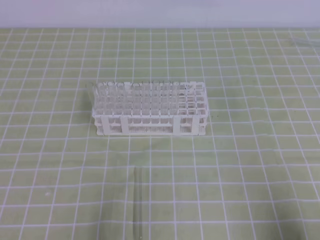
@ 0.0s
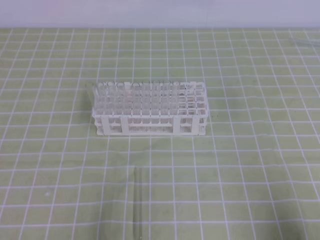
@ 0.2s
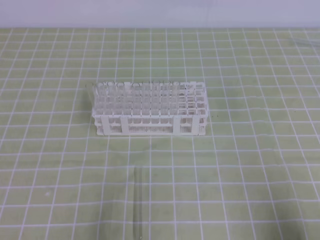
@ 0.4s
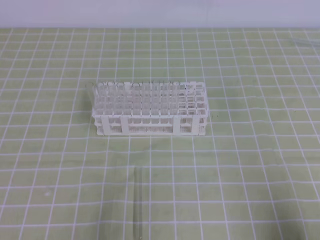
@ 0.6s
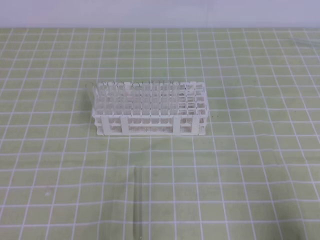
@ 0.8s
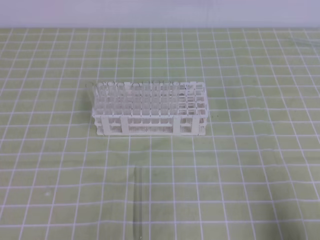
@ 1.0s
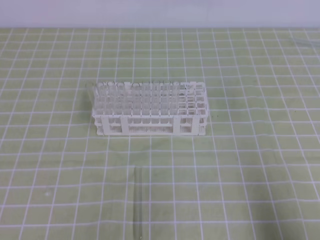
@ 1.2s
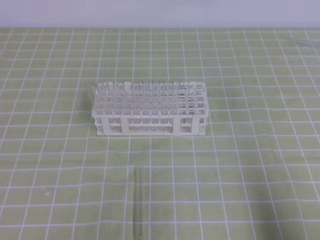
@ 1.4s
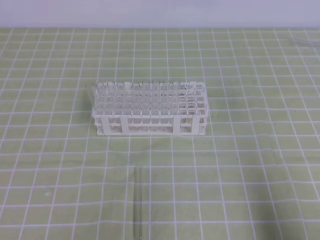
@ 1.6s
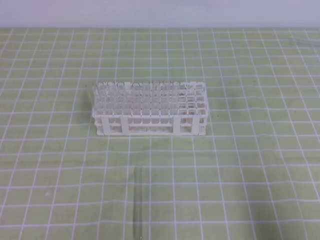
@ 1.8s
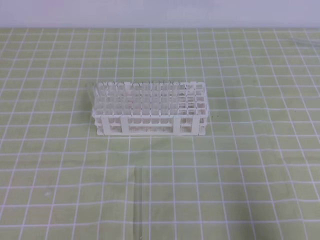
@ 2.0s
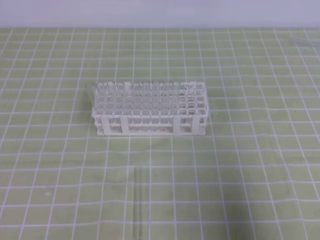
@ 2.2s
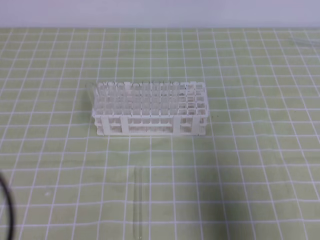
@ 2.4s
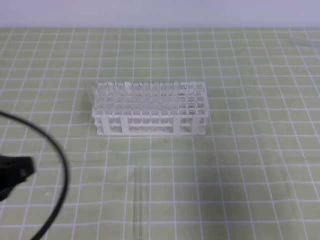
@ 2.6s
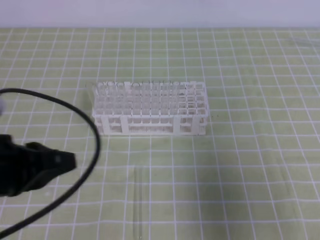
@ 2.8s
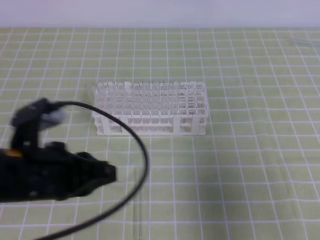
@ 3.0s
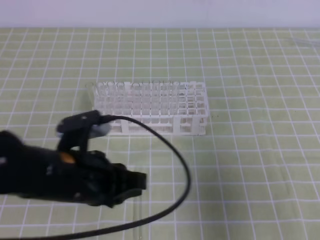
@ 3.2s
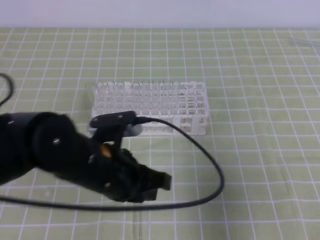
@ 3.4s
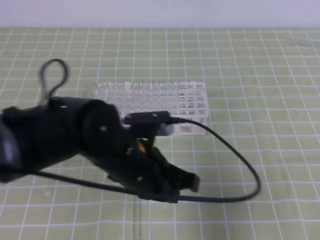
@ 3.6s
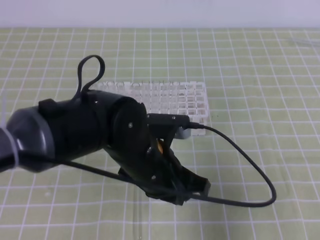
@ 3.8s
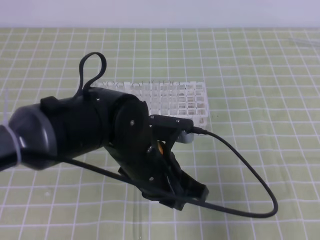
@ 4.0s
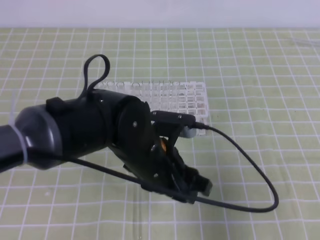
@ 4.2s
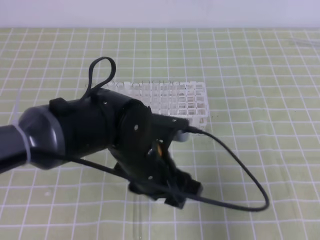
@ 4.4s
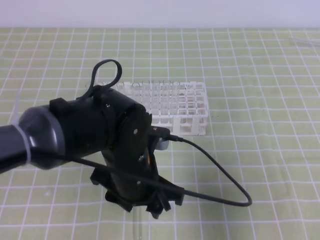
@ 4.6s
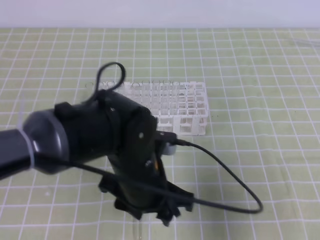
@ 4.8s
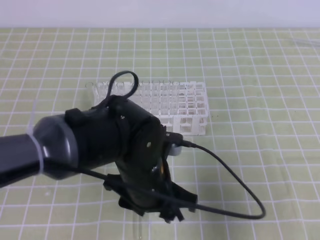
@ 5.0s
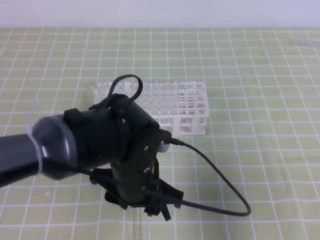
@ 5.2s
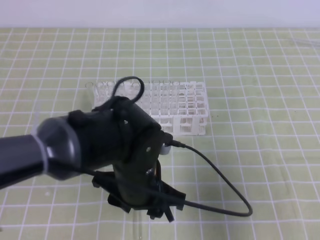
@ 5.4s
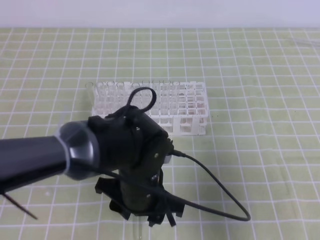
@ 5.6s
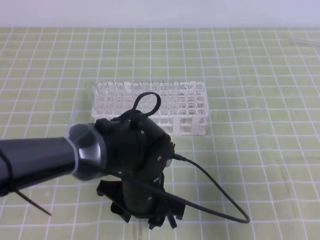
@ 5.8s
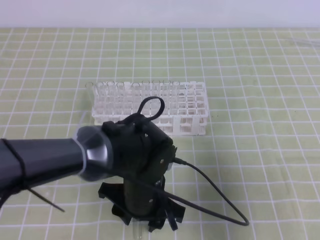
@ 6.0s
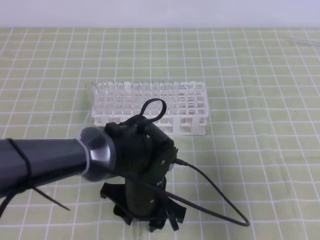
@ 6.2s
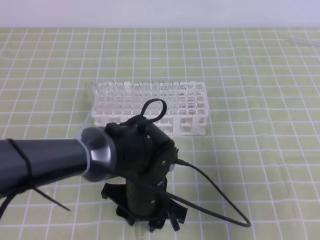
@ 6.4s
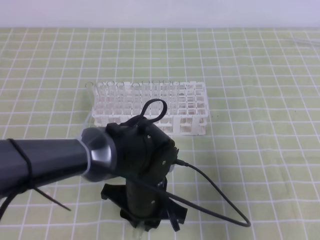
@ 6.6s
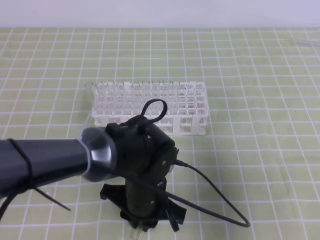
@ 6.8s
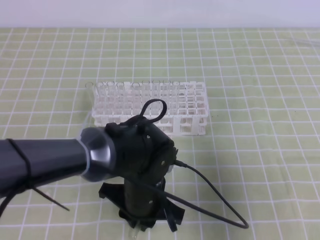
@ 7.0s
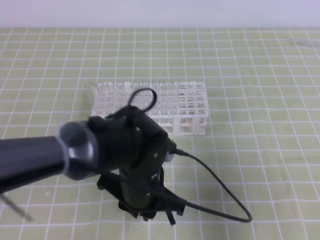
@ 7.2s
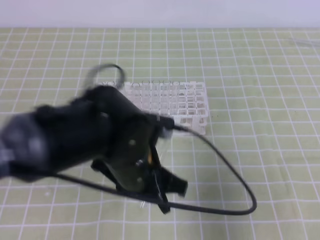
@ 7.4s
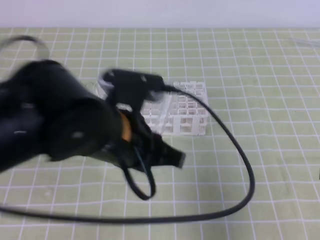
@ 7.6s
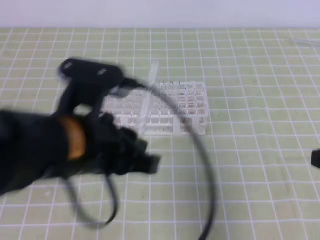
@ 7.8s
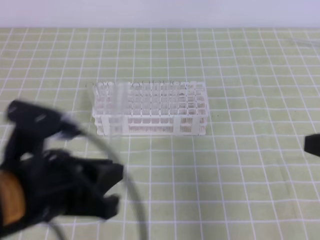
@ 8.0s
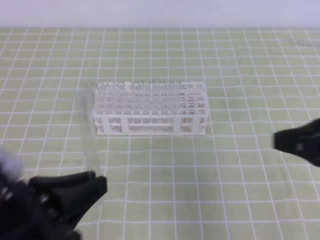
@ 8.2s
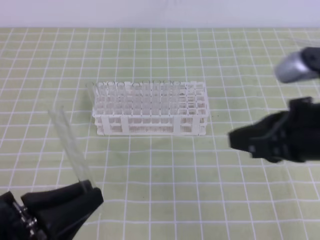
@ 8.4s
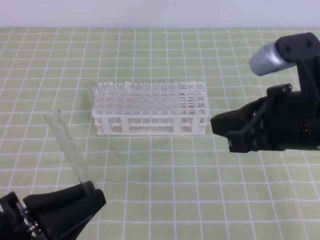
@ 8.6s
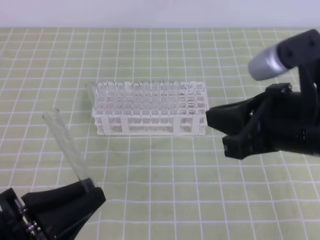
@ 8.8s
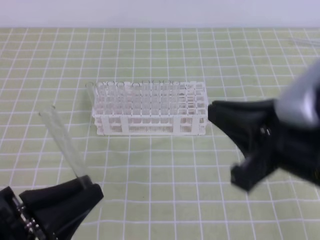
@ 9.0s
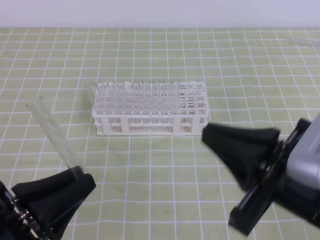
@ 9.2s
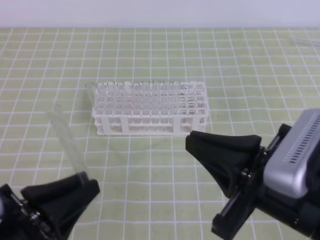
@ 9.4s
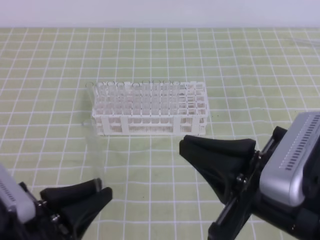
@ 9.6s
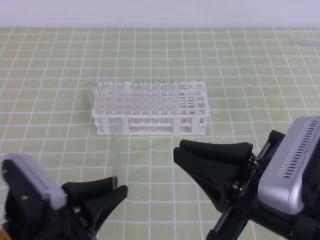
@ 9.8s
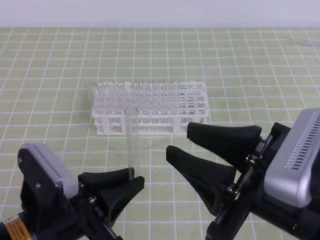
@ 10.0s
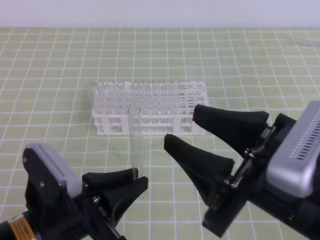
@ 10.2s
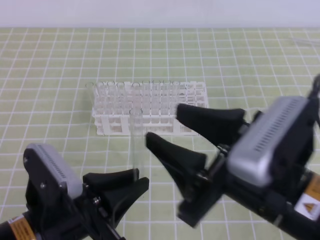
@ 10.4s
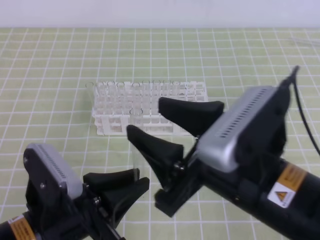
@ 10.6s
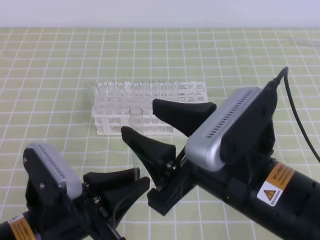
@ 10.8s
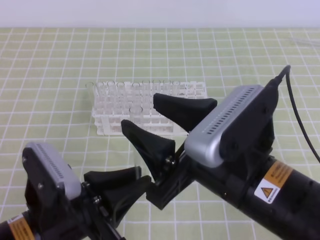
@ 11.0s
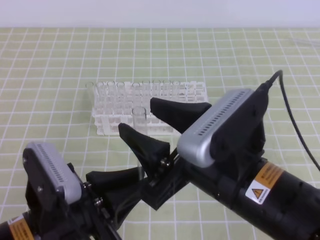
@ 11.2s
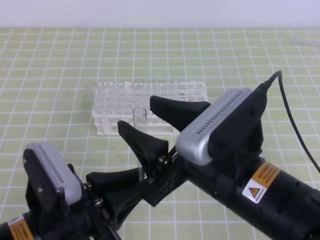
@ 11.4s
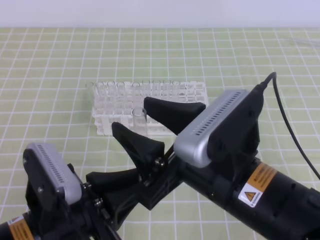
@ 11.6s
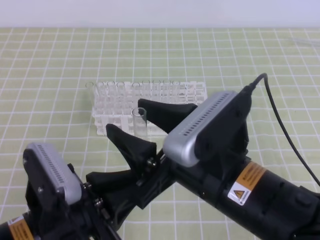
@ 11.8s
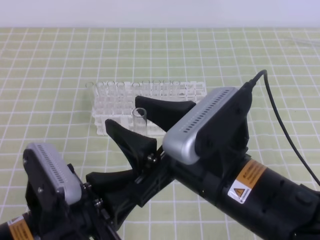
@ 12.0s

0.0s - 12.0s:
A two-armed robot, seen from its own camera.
1.6s - 3.0s: The right gripper moves forward and upward, roughly 10 cm, while the left gripper travels forward, to the right and upward by some 15 cm.
3.0s - 4.4s: The left gripper travels to the right by approximately 15 cm, and opens.
4.4s - 6.0s: The left gripper goes about 5 cm downward.
6.0s - 7.6s: The left gripper is displaced upward by about 10 cm, and closes up.
7.6s - 9.0s: The right gripper travels to the left and upward by about 15 cm, while the left gripper heads to the left and backward, covering approximately 15 cm.
9.0s - 10.4s: The left gripper moves to the right, about 5 cm. Meanwhile the right gripper shifts by approximately 5 cm, and opens up.
10.4s - 12.0s: The right gripper changes place by some 5 cm.

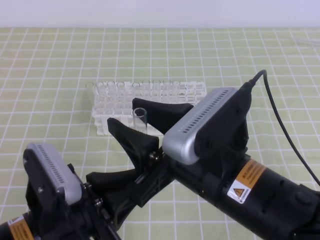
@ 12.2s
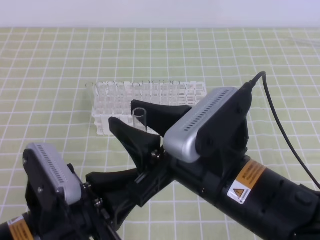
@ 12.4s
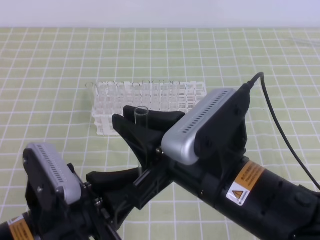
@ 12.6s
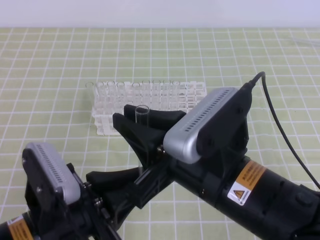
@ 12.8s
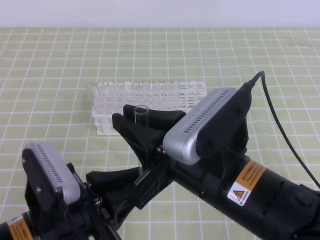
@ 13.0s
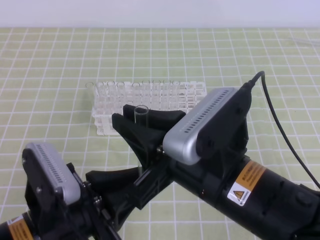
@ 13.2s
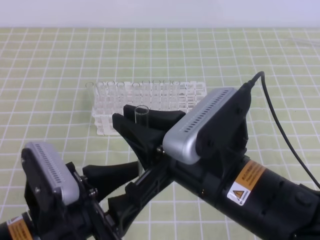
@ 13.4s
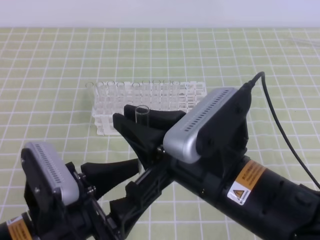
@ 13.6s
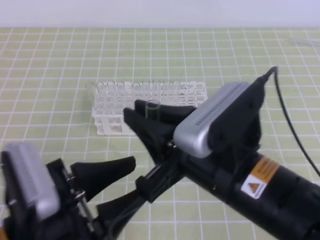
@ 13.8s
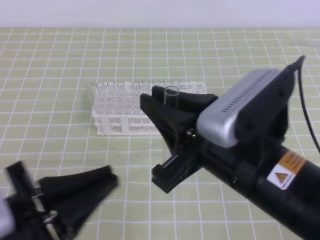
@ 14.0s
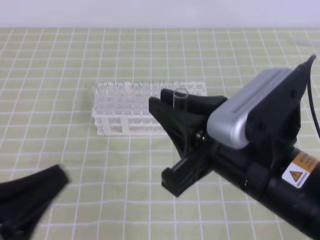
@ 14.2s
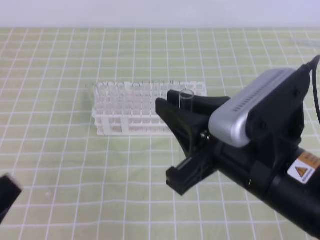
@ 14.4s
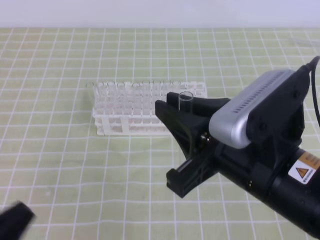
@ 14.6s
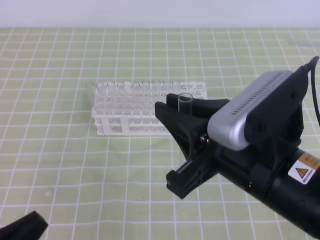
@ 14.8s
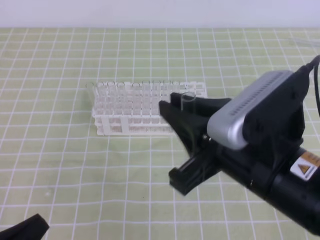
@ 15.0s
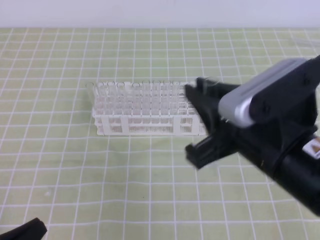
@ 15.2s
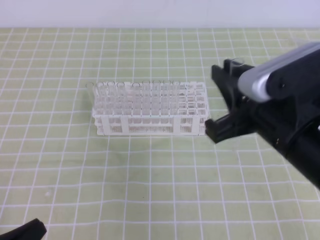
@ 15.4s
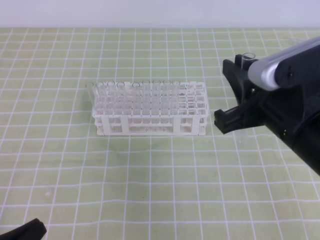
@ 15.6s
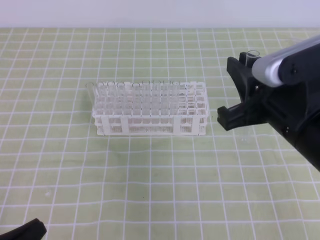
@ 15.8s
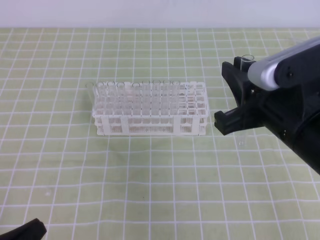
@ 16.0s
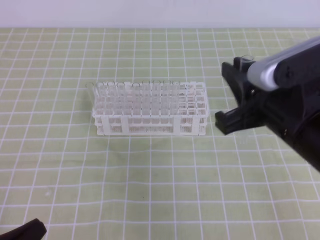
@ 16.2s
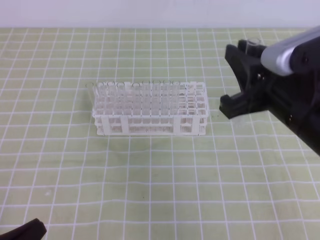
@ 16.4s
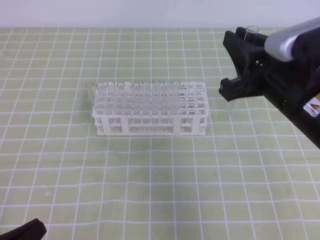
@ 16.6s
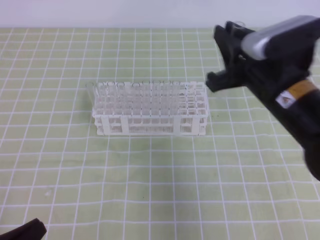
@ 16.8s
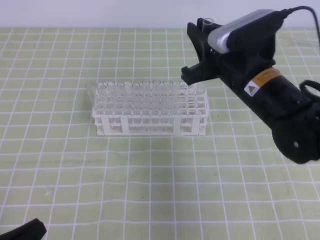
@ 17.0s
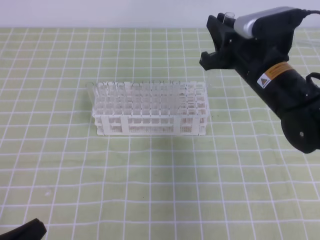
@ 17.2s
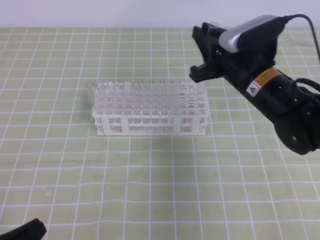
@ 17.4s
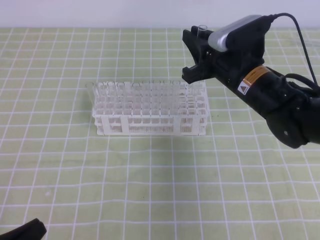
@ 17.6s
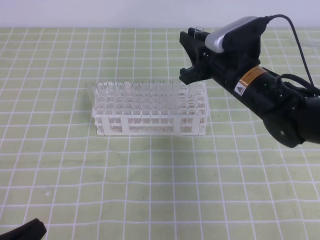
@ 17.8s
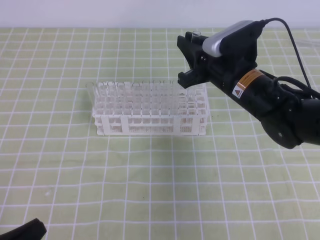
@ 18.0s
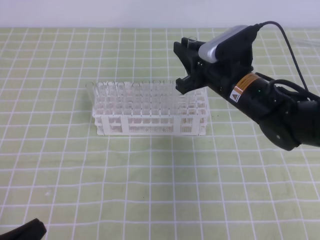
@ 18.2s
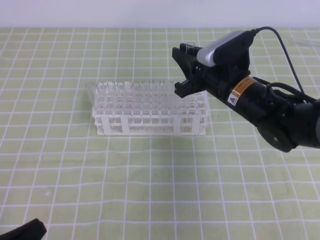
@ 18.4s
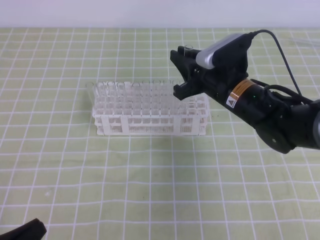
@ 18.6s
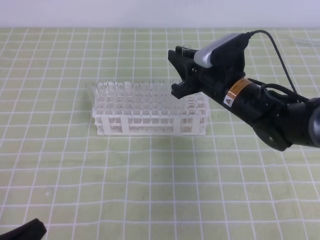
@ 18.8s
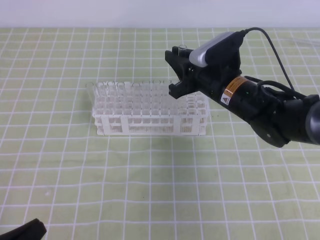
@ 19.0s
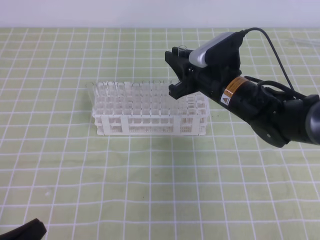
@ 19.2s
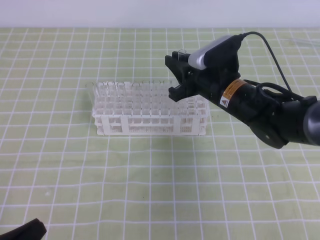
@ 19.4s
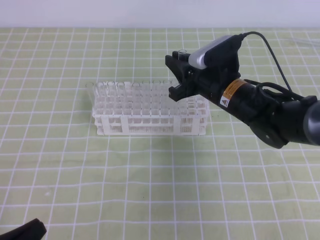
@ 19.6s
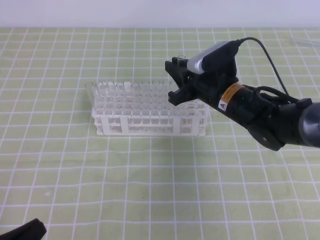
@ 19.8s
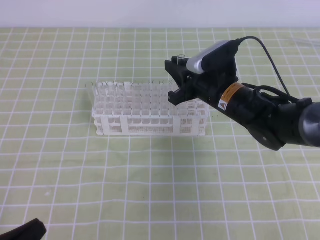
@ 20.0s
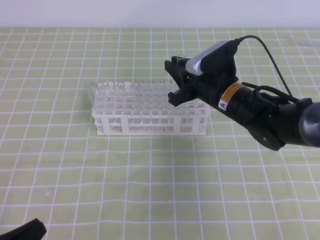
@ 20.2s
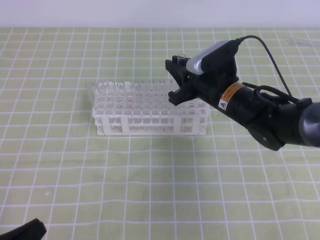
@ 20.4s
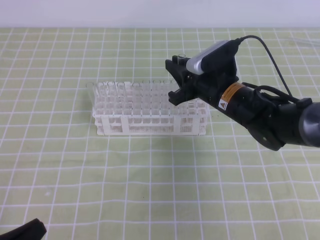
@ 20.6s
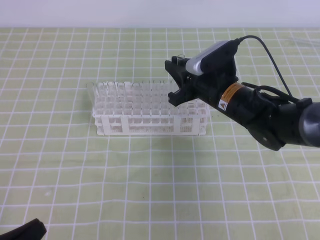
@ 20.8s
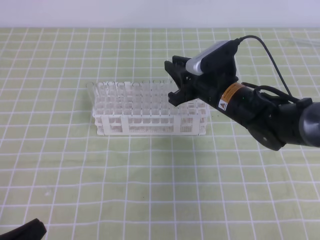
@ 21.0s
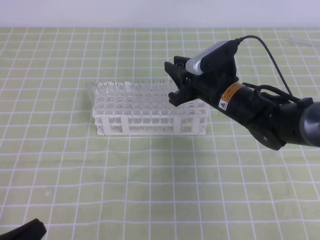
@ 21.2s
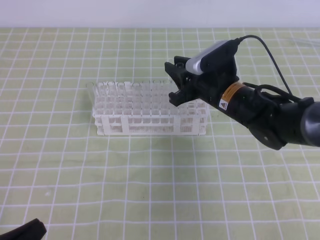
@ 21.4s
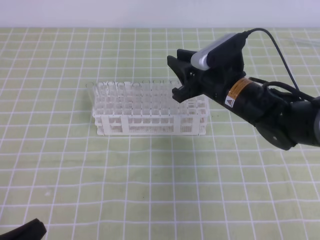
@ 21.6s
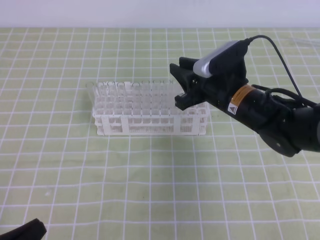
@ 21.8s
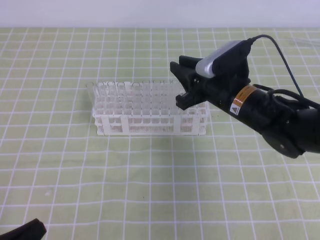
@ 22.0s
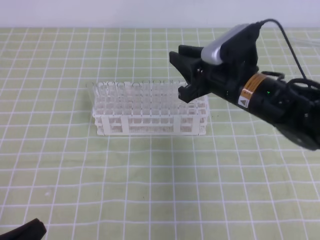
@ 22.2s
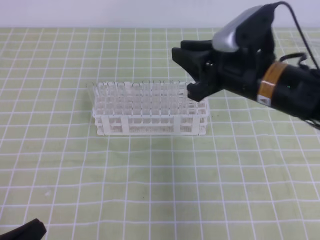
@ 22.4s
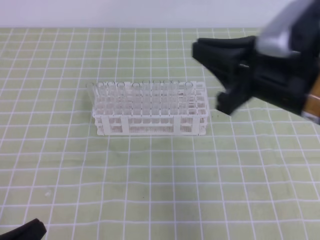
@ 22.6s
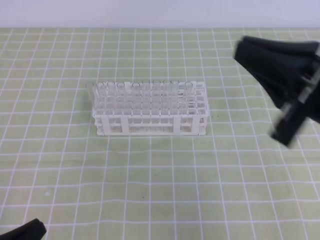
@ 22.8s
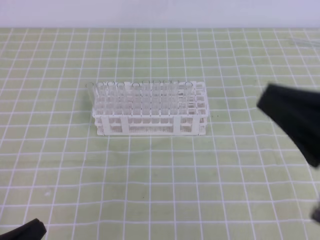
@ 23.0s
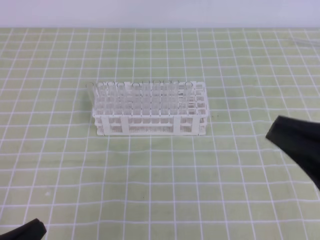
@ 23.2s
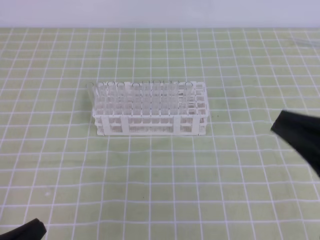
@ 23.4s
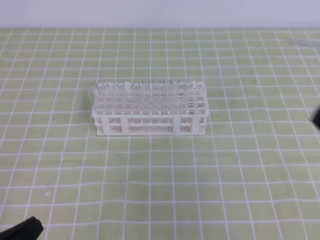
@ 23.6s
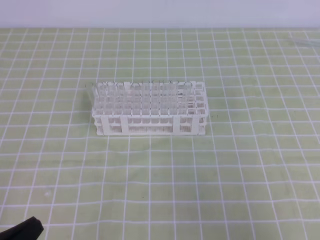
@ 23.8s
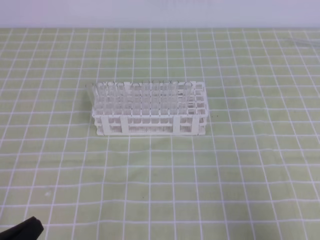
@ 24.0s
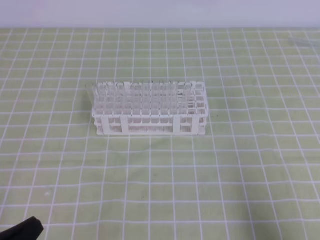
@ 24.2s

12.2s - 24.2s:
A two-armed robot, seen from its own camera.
12.2s - 13.8s: The left gripper opens its fingers. The right gripper closes up.
13.8s - 15.2s: The left gripper moves to the left, downward and backward, about 15 cm, and closes its fingers.
15.2s - 16.6s: The right gripper shifts about 10 cm forward.
16.6s - 18.2s: The right gripper travels forward and downward by some 15 cm.
18.2s - 19.8s: The grippers make only small movements.
19.8s - 21.2s: Neither gripper changes place.
21.2s - 22.6s: The right gripper heads upward, backward and to the right, covering approximately 20 cm.
22.6s - 24.2s: The right gripper goes about 25 cm backward, to the right and downward.
